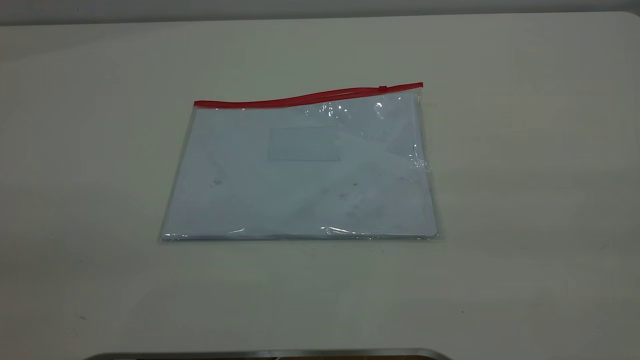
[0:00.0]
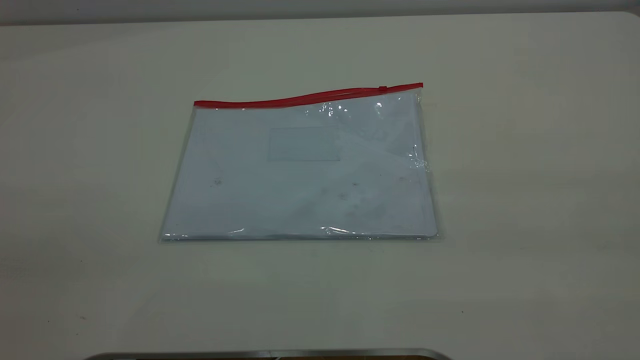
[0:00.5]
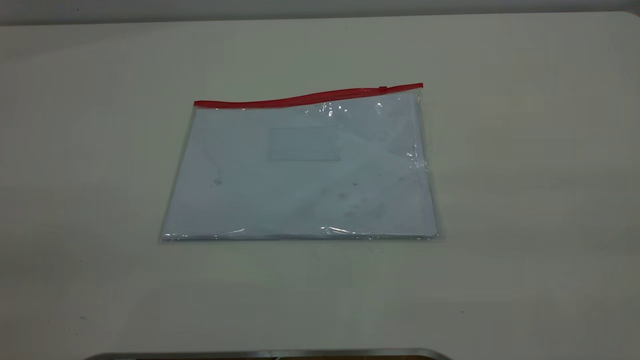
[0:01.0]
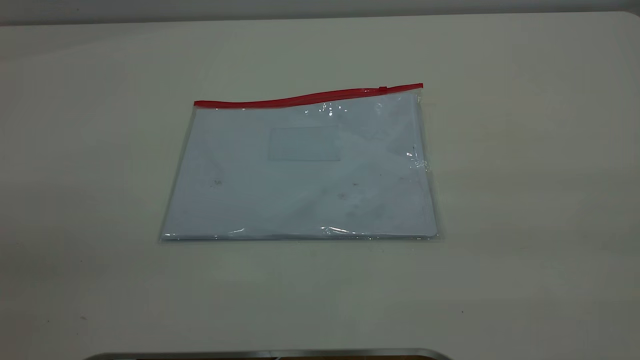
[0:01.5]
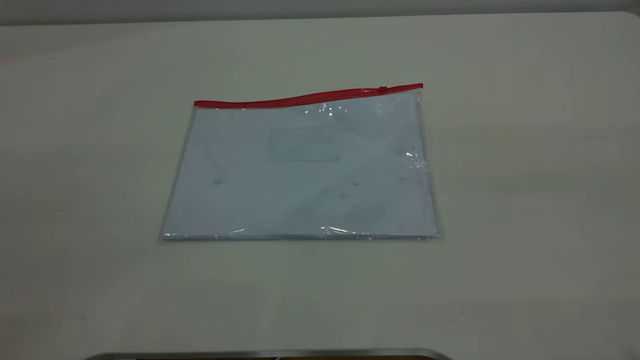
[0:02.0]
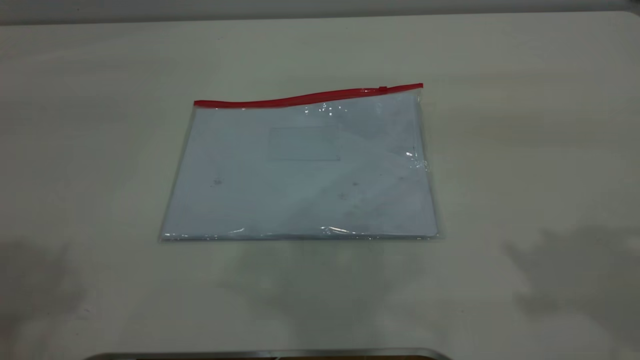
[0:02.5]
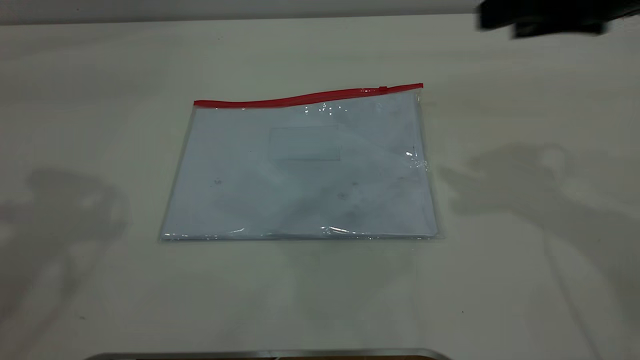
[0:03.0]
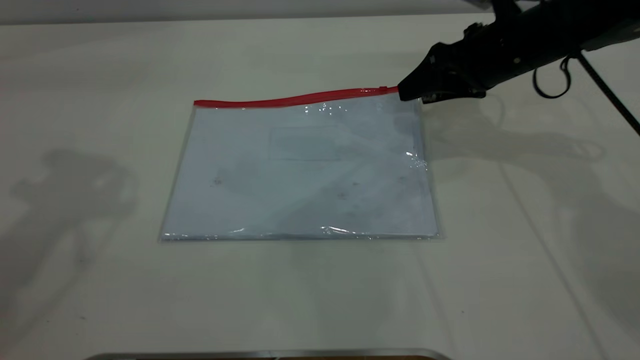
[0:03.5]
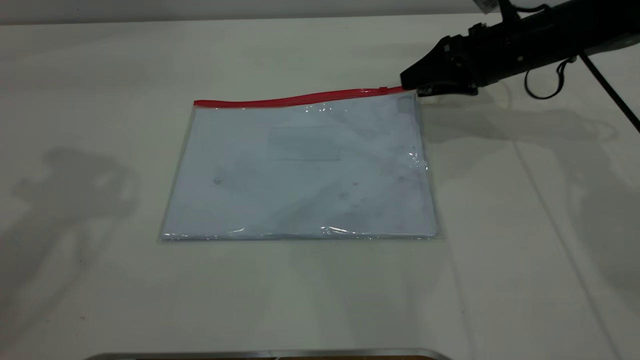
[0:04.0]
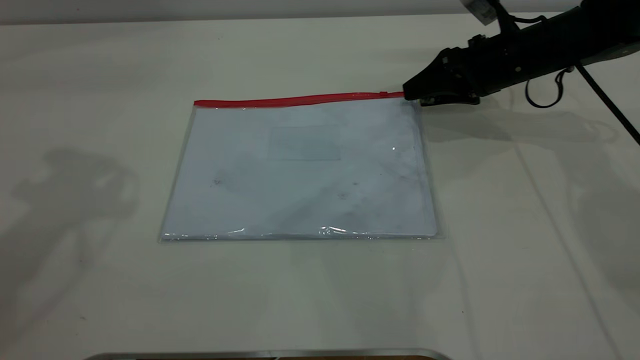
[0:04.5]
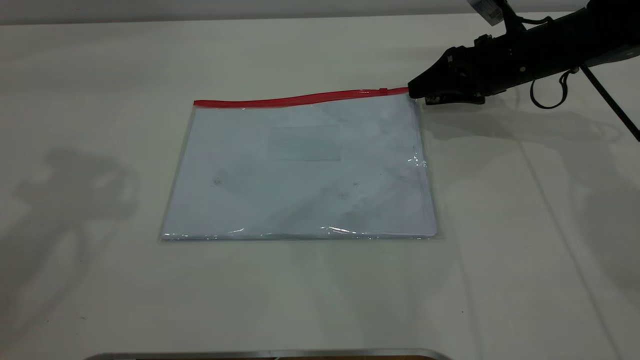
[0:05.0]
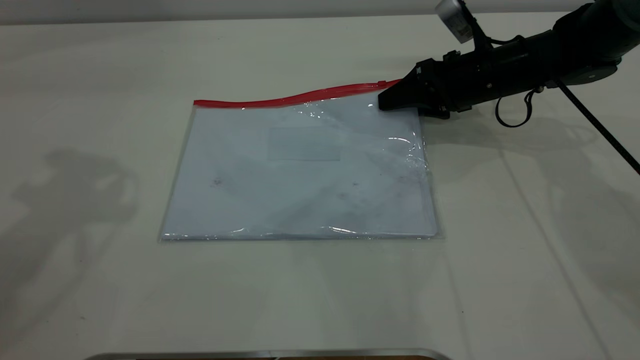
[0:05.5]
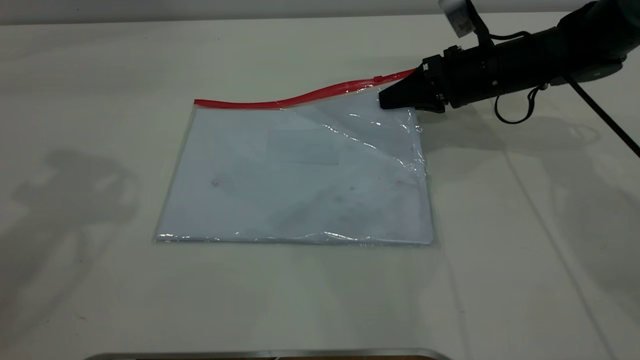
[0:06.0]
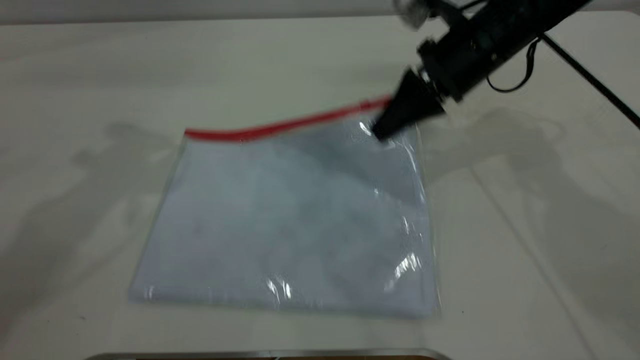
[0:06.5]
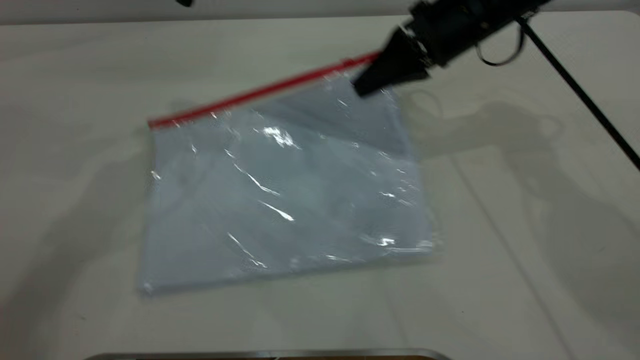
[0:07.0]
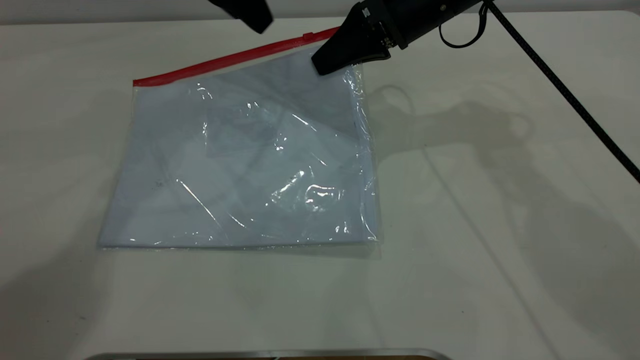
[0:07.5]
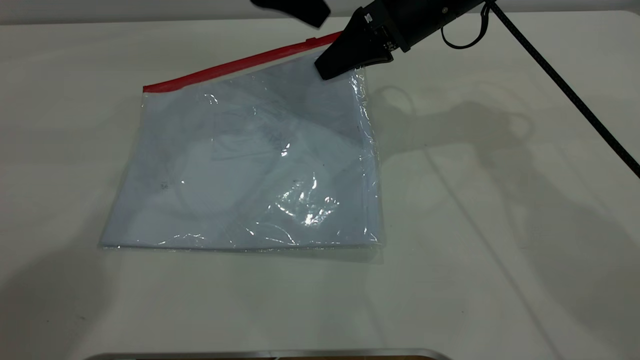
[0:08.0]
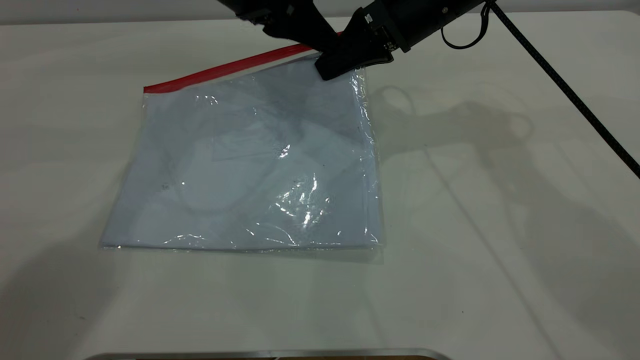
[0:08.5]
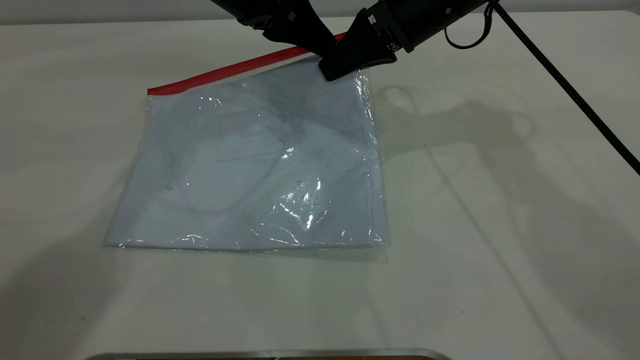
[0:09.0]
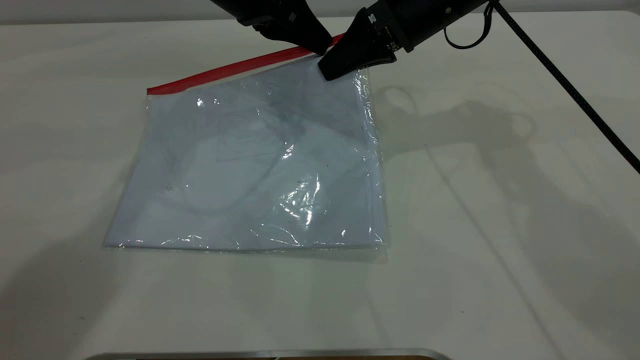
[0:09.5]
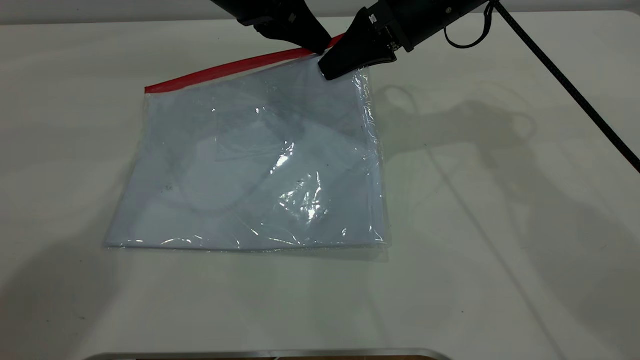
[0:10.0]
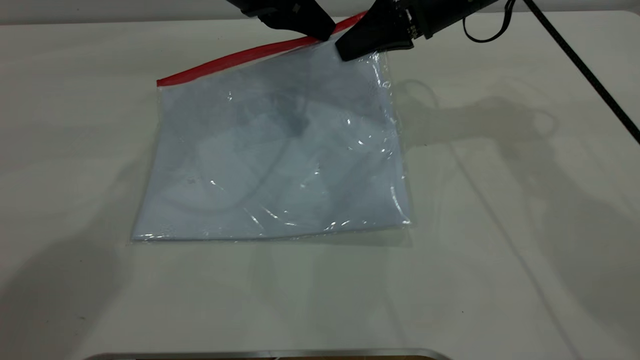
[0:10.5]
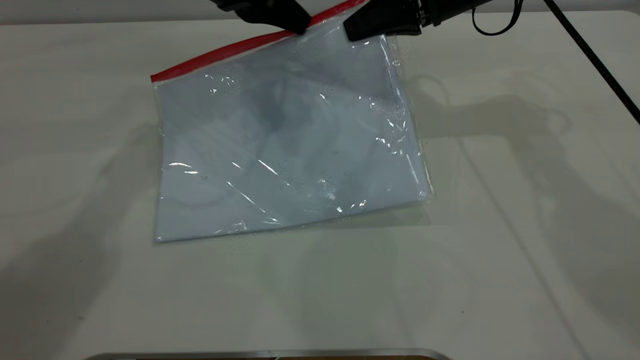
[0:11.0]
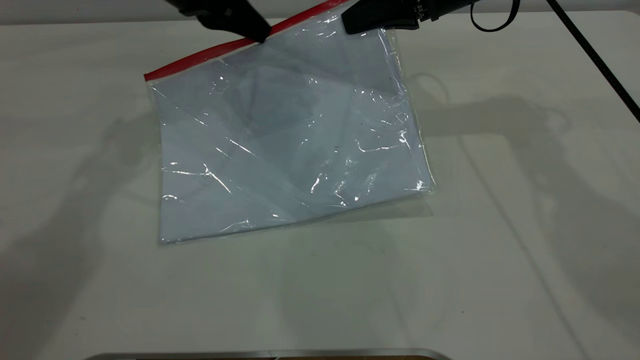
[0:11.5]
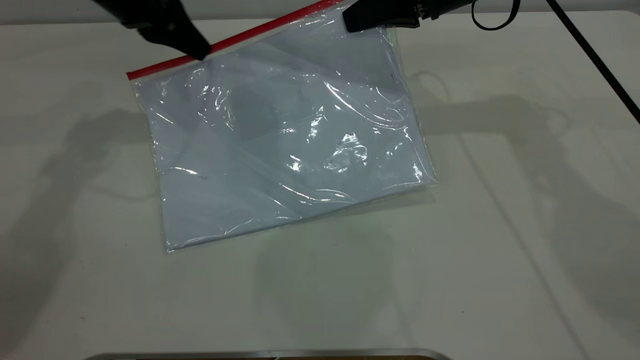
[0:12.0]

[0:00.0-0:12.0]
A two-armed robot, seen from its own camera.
Step, 0:00.0 to 0:07.0: Pick up the transparent plastic bag with the right gripper.
0:02.0 to 0:04.0: The left gripper travels forward by some 25 cm, while the right gripper is displaced forward and downward by about 50 cm.
0:04.0 to 0:06.0: The right gripper closes up.
0:06.0 to 0:08.0: The right gripper is displaced upward and to the left by roughly 15 cm. The left gripper shifts about 25 cm to the right, forward and downward.
0:08.0 to 0:10.0: The left gripper closes its fingers.
0:10.0 to 0:12.0: The left gripper travels to the left by roughly 15 cm.

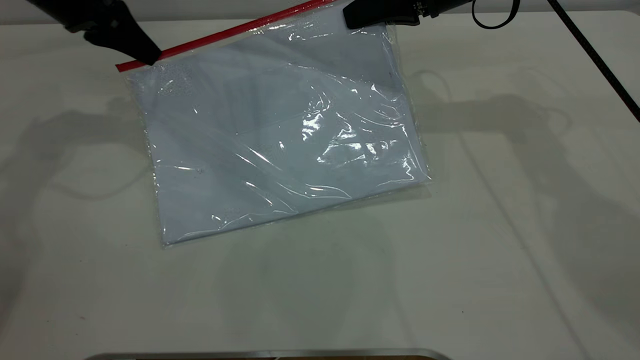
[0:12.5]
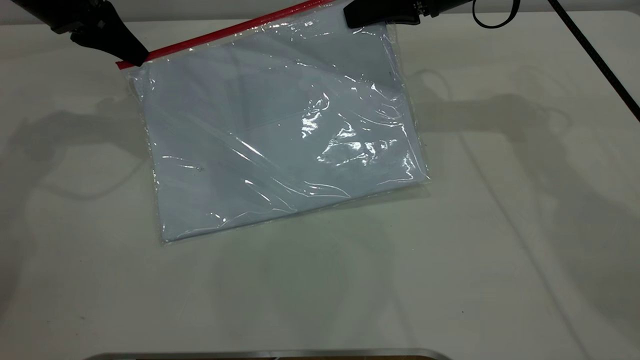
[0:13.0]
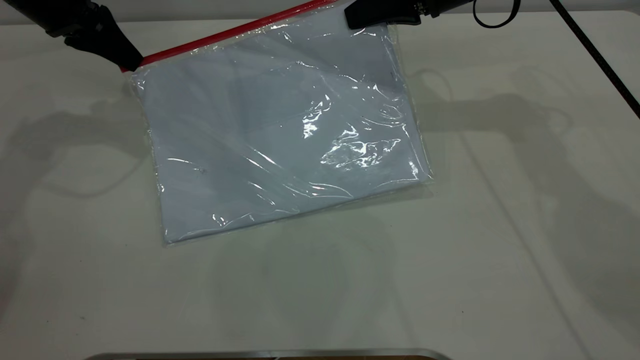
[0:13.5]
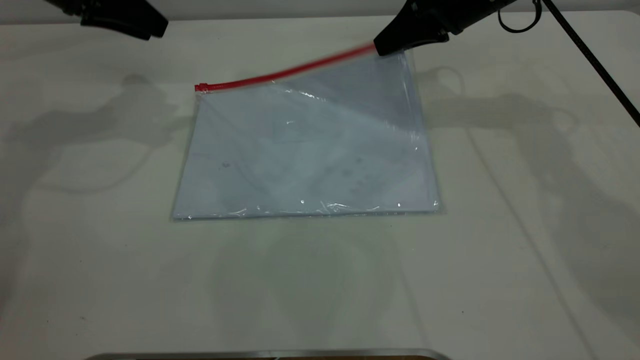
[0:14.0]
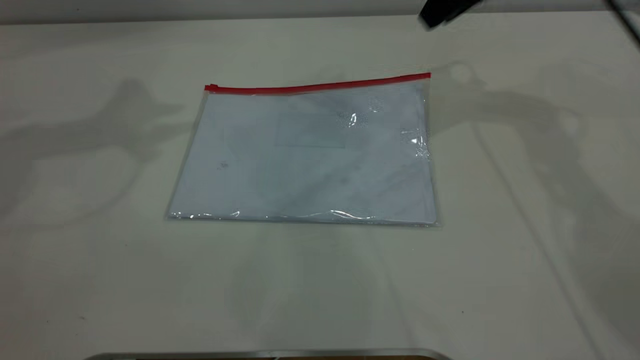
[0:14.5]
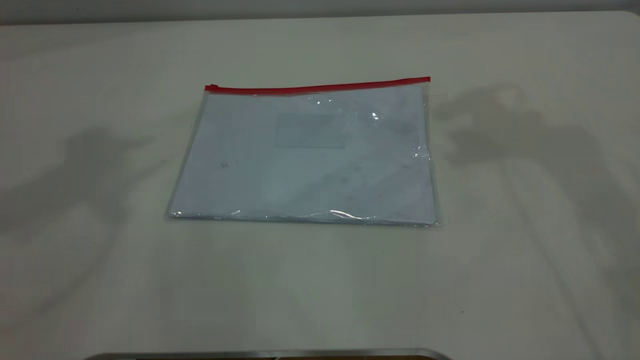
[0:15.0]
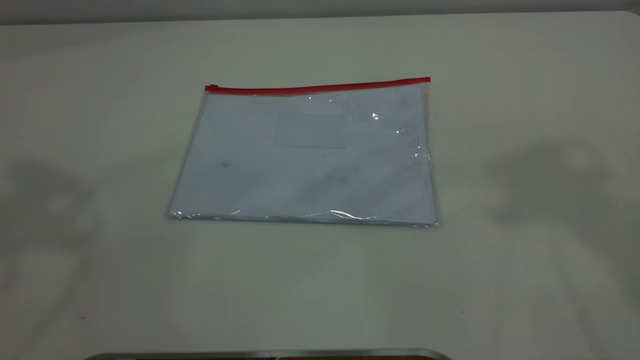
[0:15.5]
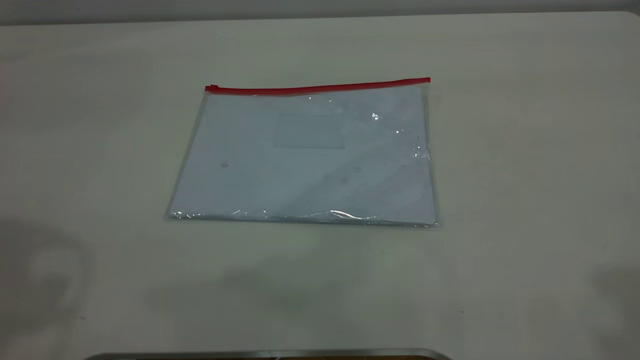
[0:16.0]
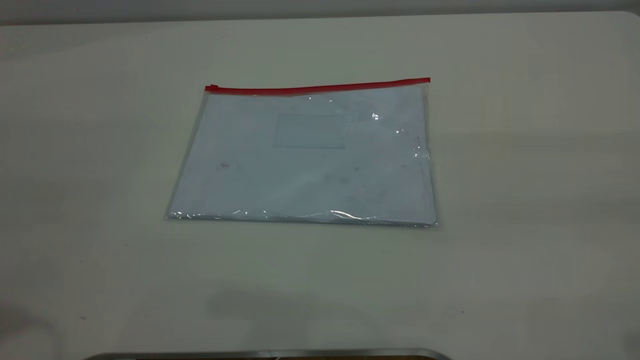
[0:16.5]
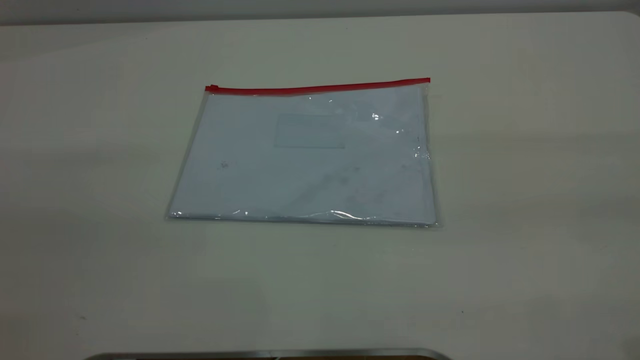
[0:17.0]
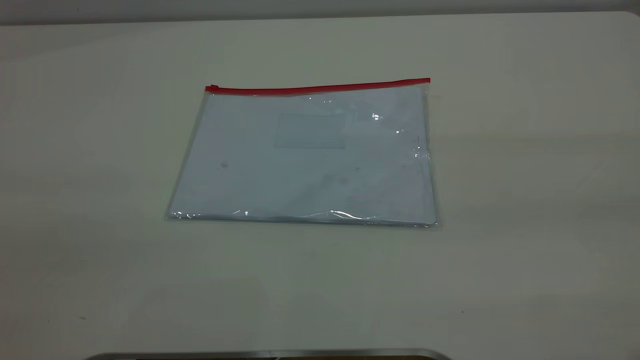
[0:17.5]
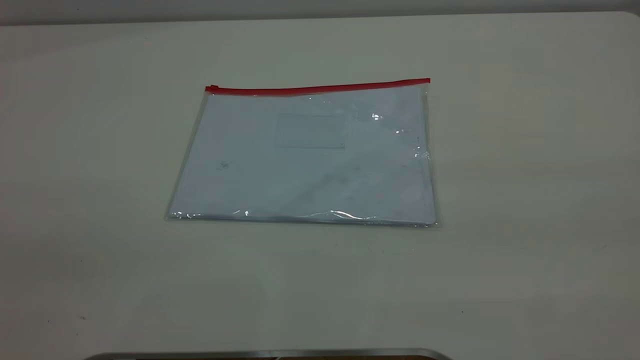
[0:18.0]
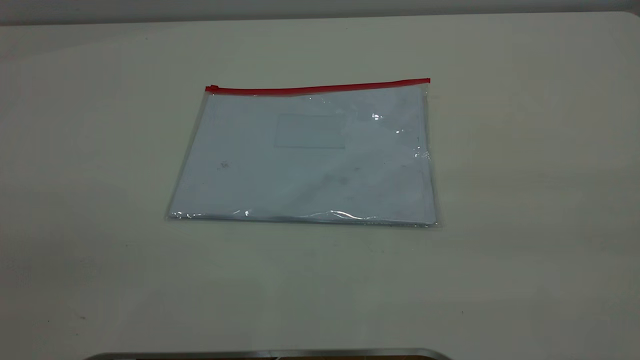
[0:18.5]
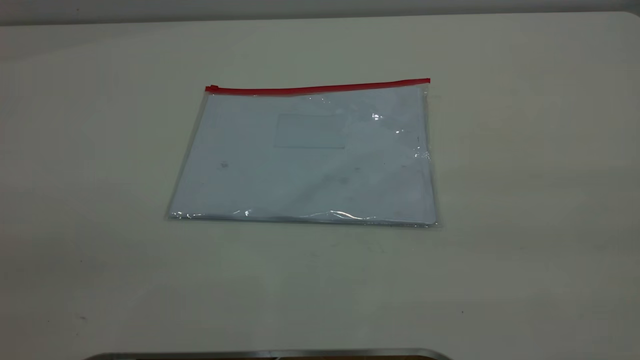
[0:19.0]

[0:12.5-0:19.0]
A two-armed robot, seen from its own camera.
Step, 0:14.0 to 0:14.5: Place the transparent plastic bag.
0:12.5 to 0:14.5: The right gripper is displaced upward by approximately 5 cm, and opens its fingers. The left gripper heads upward, covering about 20 cm, and opens.
0:14.5 to 0:17.0: The two grippers go roughly 35 cm backward.
